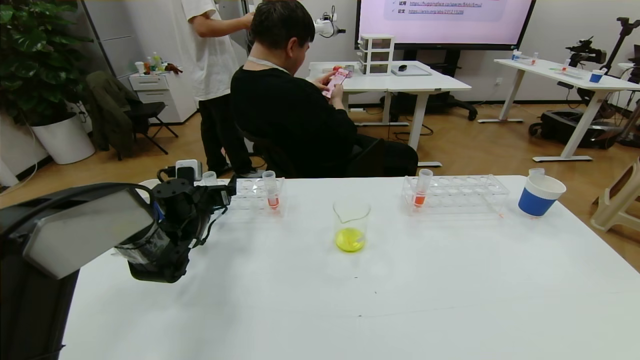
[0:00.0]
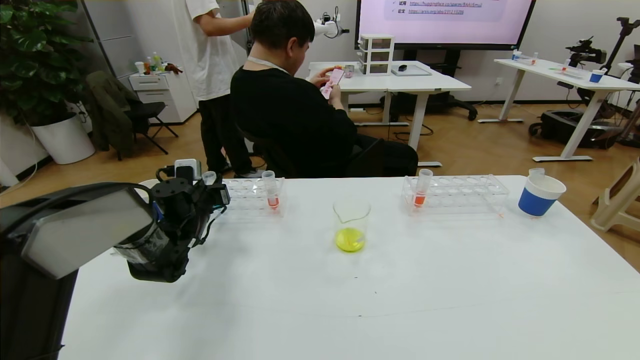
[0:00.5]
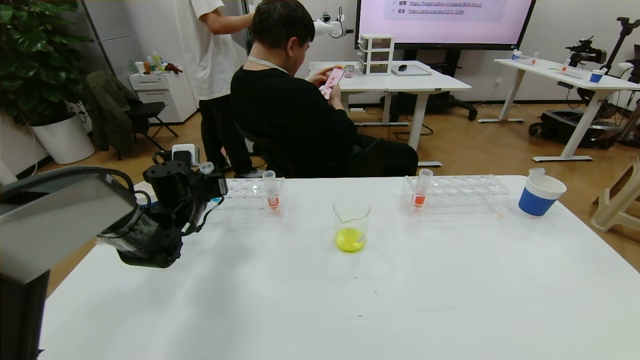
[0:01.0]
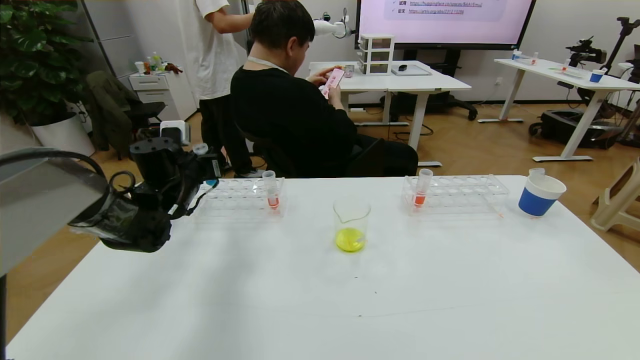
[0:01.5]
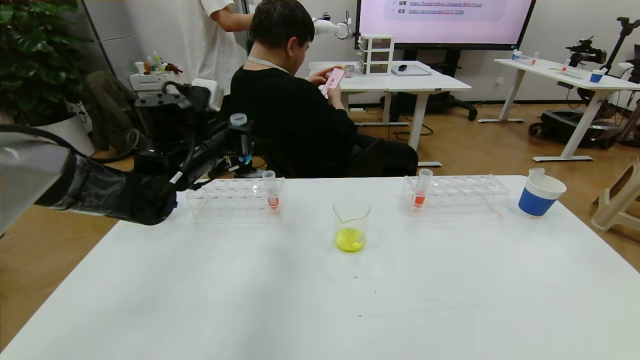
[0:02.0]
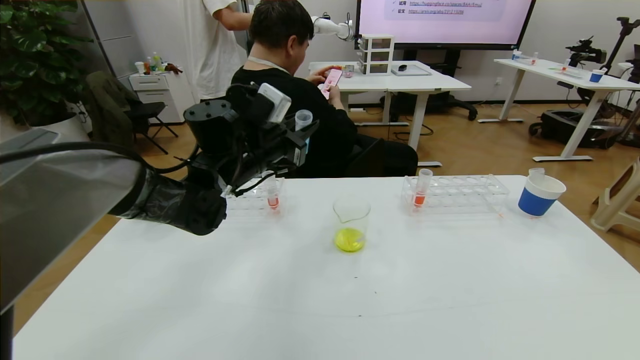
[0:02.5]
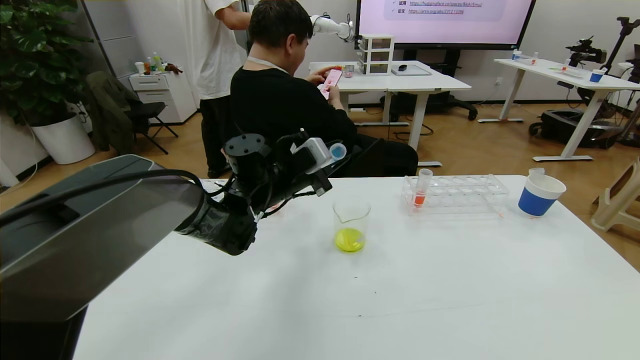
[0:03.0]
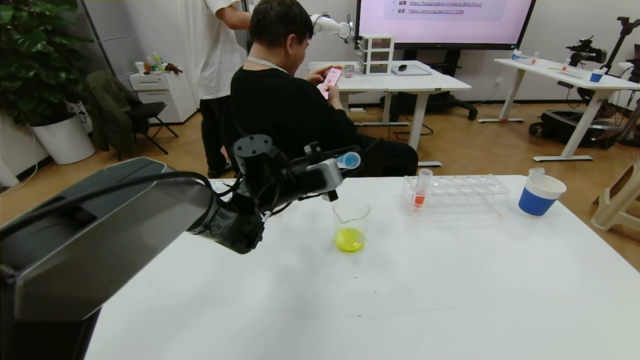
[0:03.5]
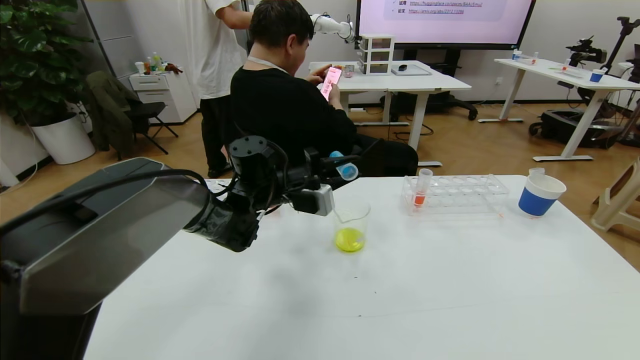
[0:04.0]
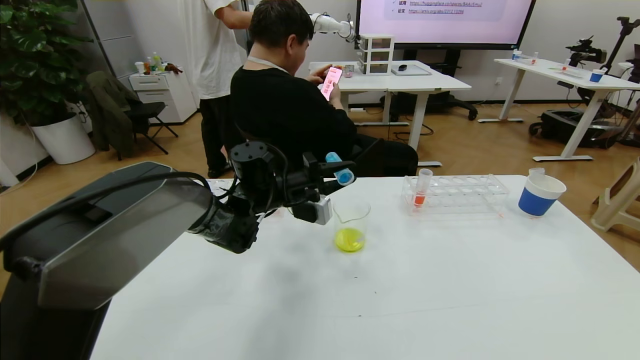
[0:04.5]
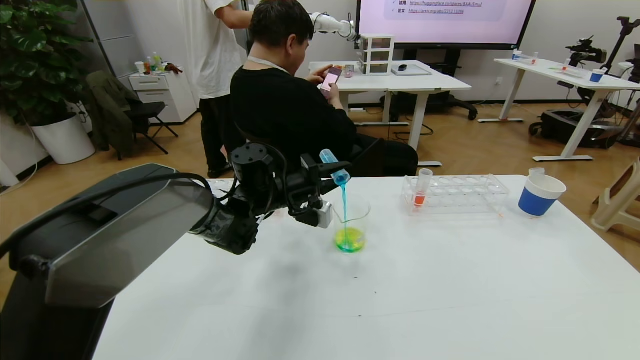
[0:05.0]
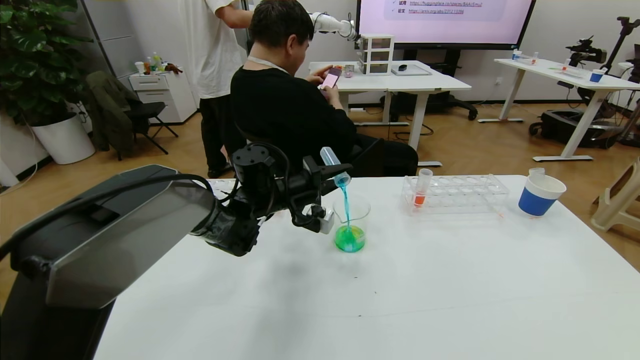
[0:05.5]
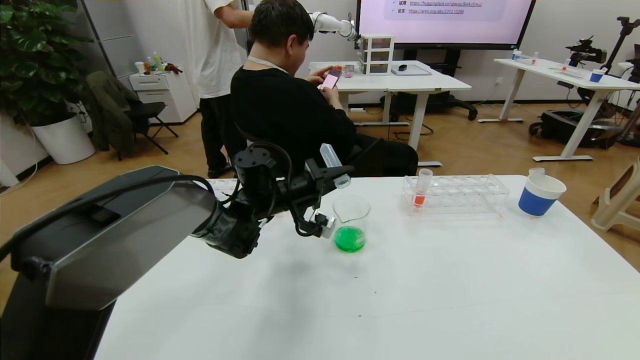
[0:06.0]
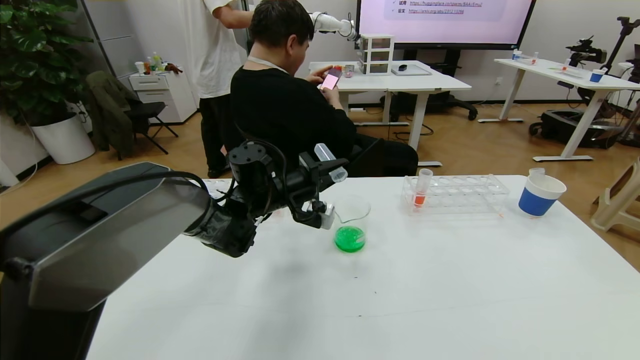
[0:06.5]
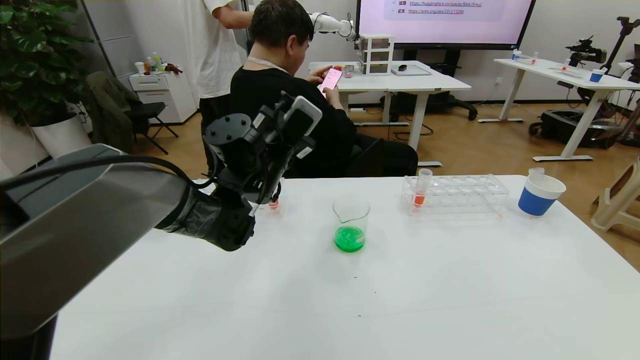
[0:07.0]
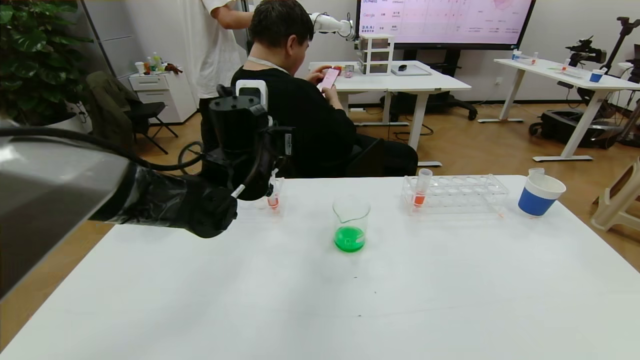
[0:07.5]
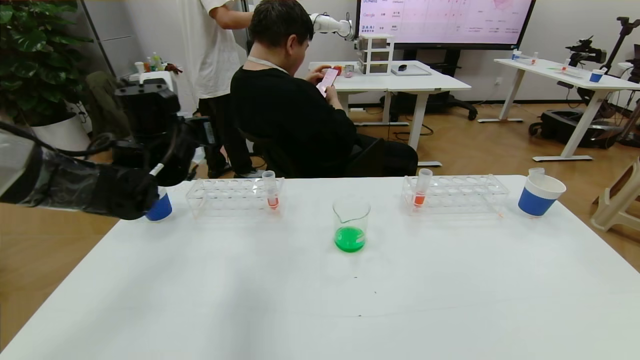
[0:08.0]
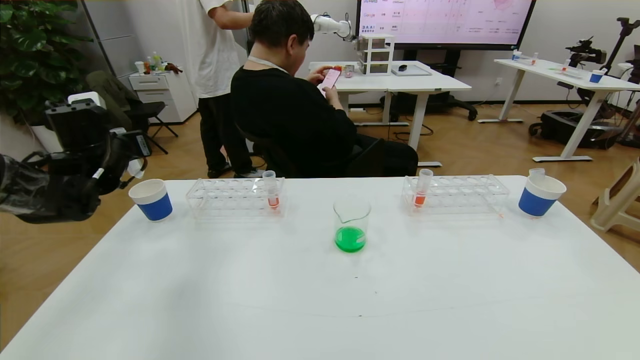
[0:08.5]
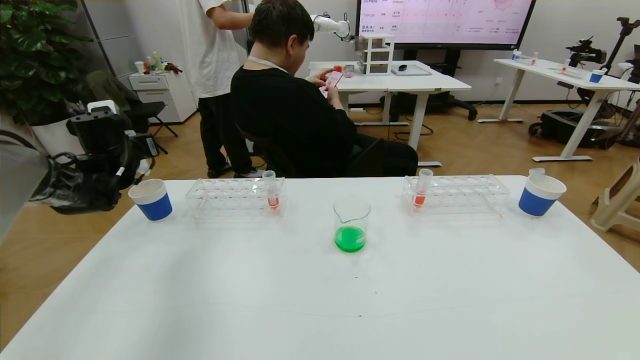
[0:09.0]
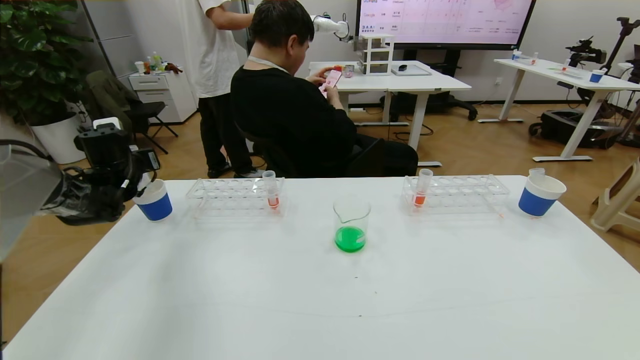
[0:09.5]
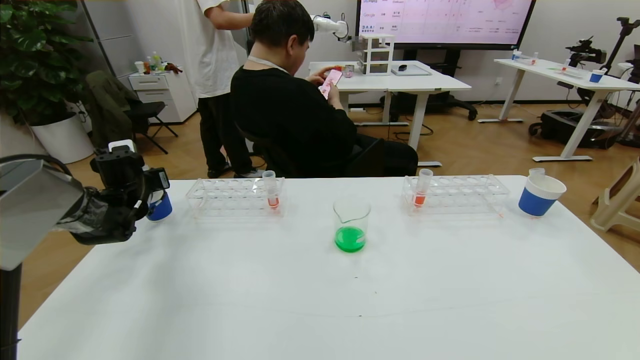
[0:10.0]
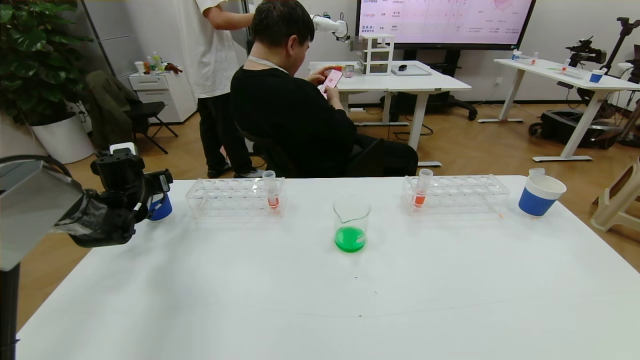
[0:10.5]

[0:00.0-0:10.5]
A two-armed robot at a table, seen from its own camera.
Task of the whole recording: pick up the test tube with yellow pigment and the test tube with blue pigment by grippers and pour them into the beaker.
0:00.0 to 0:02.0: The left gripper moves upward and to the right, approximately 15 cm, and closes its fingers.
0:02.0 to 0:04.0: The left gripper moves to the right and downward, some 15 cm.
0:06.5 to 0:08.5: The left gripper heads to the left, covering roughly 25 cm.
0:08.5 to 0:10.5: The left gripper moves downward, approximately 10 cm, and opens.

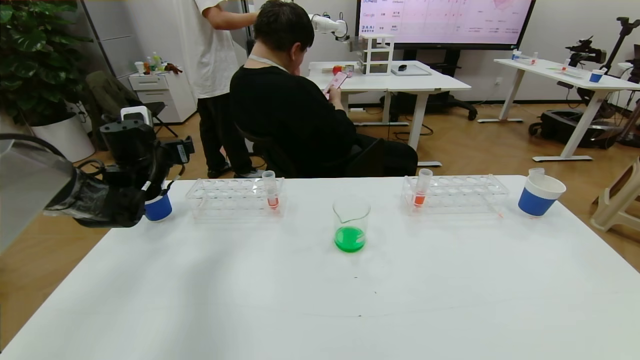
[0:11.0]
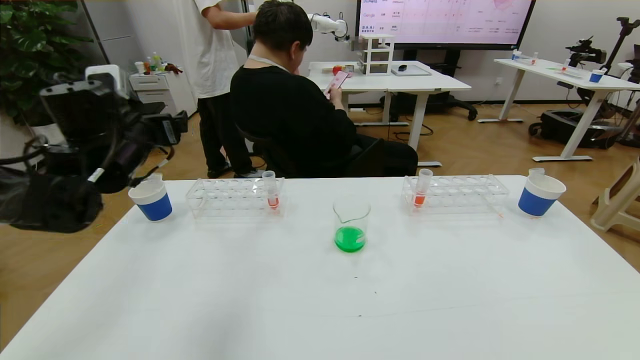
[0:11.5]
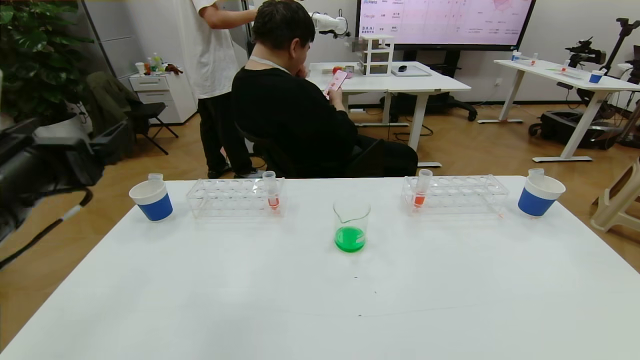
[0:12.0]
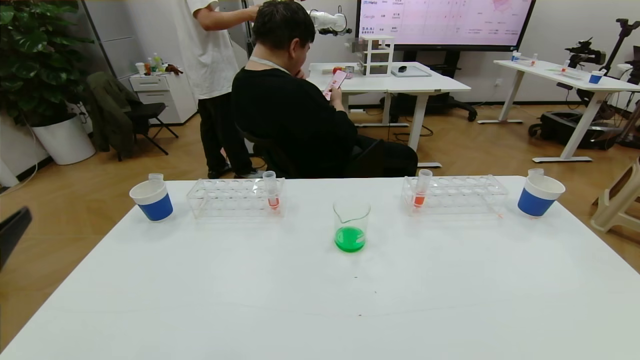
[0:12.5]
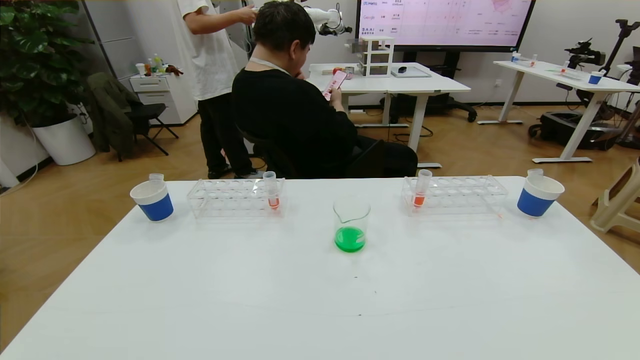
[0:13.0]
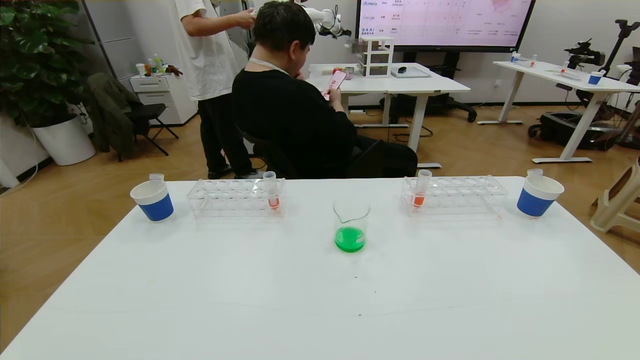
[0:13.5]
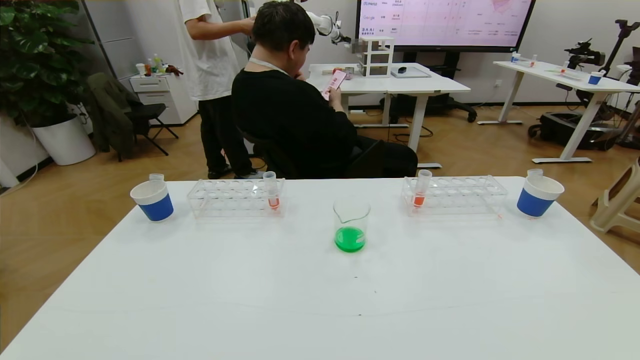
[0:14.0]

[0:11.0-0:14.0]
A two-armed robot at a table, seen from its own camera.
Task of the whole recording: pick up the test tube with yellow pigment and the test tube with blue pigment by grippers and pour them into the beaker.
0:11.0 to 0:12.5: The left gripper moves backward, some 40 cm.
0:12.5 to 0:14.0: The left gripper shifts some 20 cm downward and backward.
